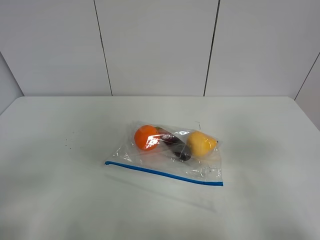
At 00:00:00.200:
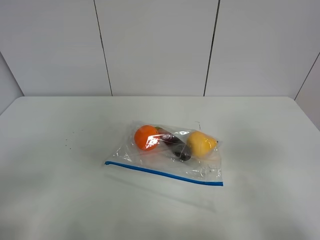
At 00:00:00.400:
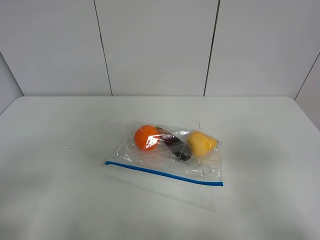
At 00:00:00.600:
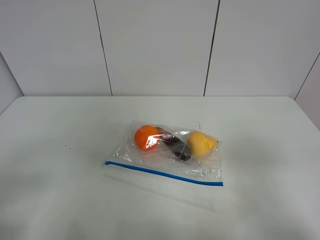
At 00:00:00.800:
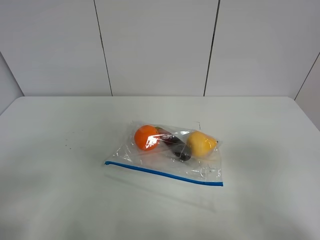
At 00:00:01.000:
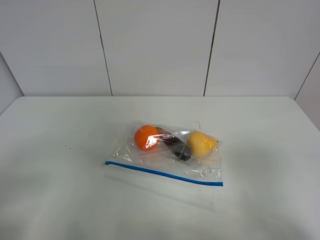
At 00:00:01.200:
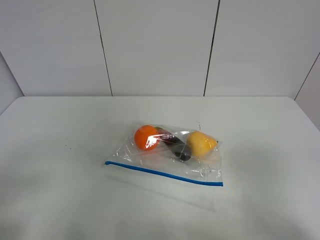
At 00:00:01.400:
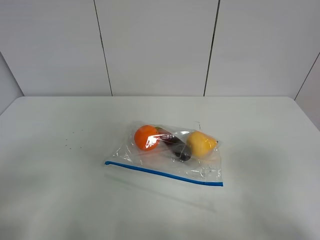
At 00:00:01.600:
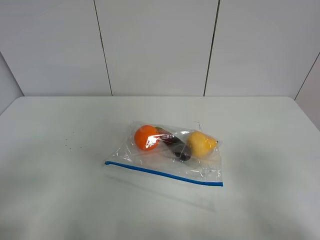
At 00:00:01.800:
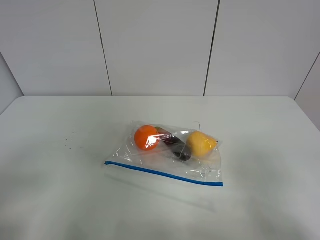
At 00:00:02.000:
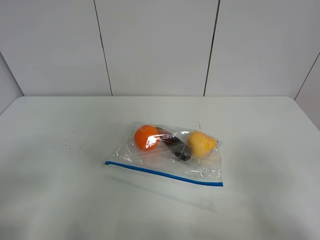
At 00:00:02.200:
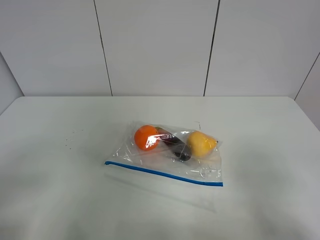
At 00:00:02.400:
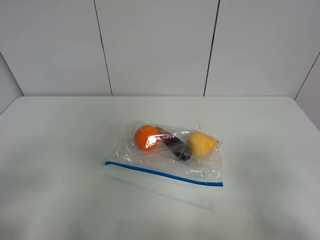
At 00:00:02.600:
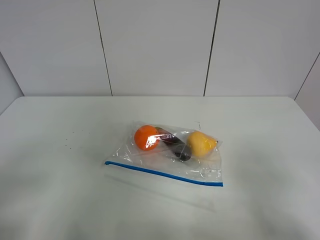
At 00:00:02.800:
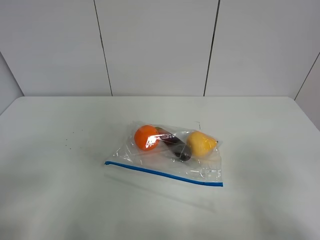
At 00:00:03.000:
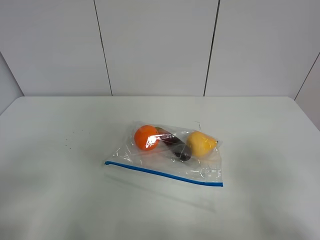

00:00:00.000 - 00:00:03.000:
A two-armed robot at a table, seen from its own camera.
00:00:01.600 - 00:00:03.000: Both grippers stay about where they are.

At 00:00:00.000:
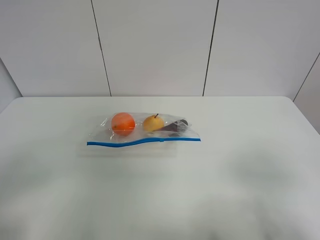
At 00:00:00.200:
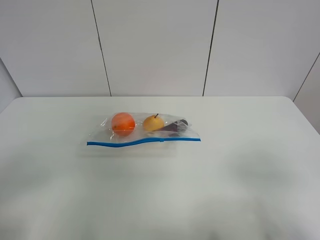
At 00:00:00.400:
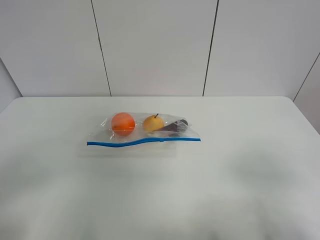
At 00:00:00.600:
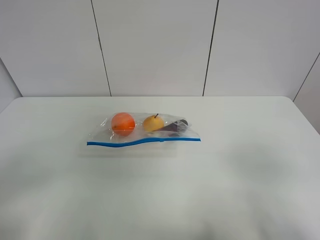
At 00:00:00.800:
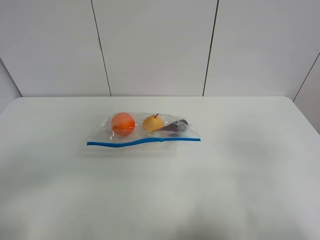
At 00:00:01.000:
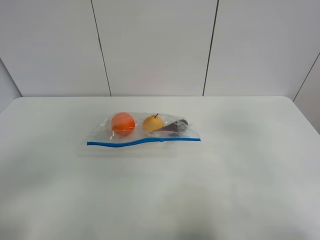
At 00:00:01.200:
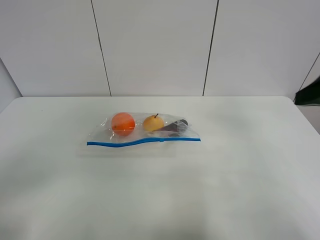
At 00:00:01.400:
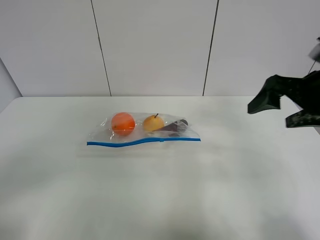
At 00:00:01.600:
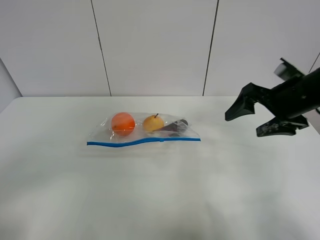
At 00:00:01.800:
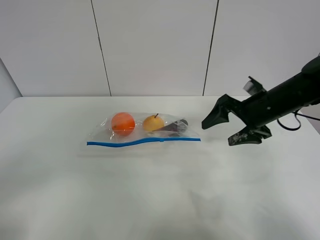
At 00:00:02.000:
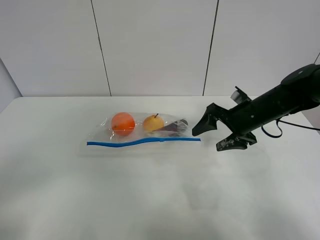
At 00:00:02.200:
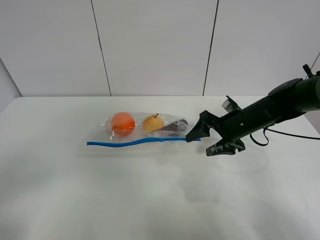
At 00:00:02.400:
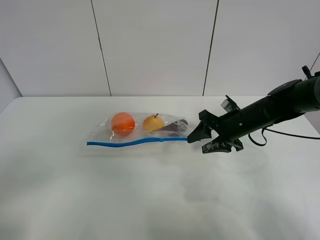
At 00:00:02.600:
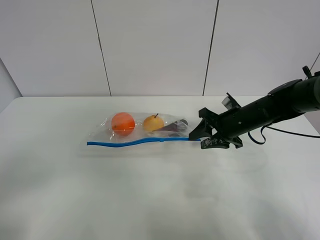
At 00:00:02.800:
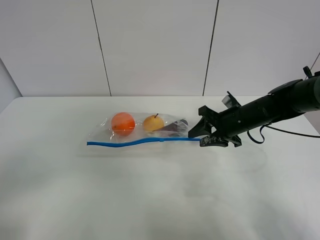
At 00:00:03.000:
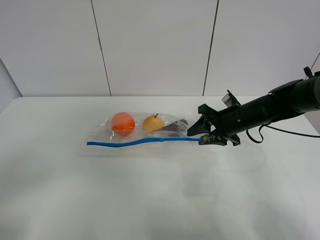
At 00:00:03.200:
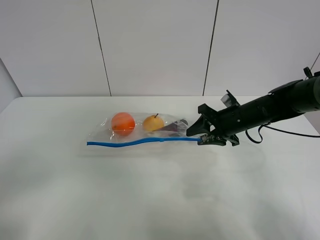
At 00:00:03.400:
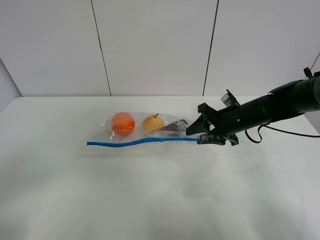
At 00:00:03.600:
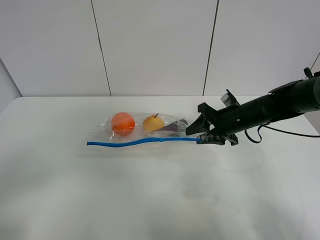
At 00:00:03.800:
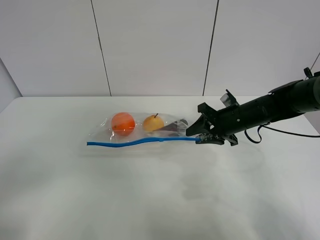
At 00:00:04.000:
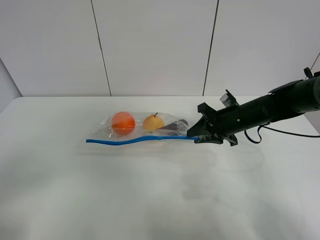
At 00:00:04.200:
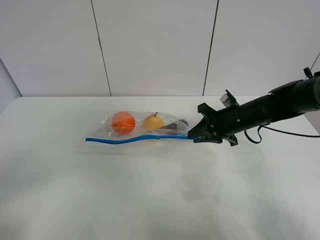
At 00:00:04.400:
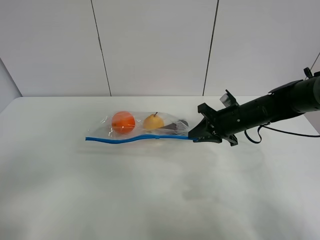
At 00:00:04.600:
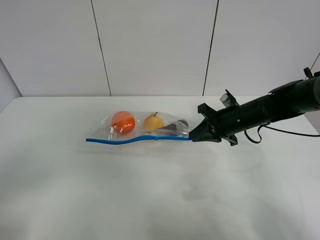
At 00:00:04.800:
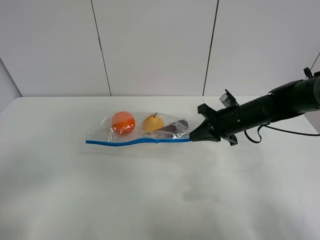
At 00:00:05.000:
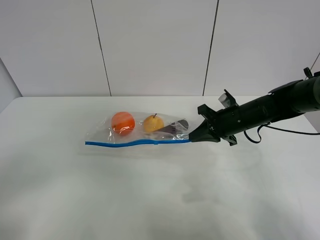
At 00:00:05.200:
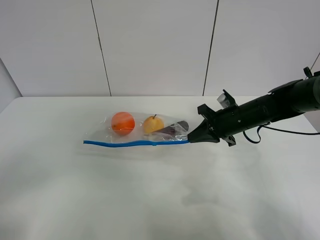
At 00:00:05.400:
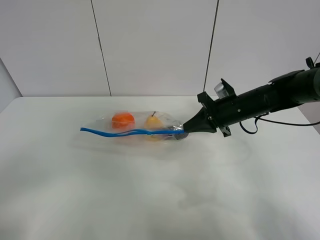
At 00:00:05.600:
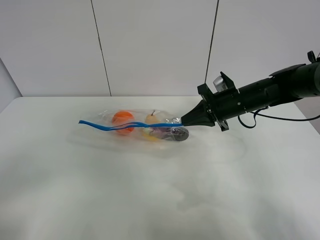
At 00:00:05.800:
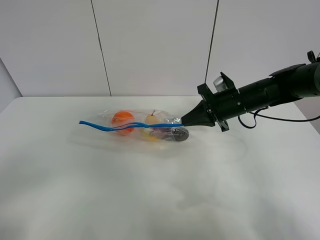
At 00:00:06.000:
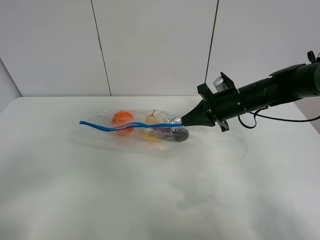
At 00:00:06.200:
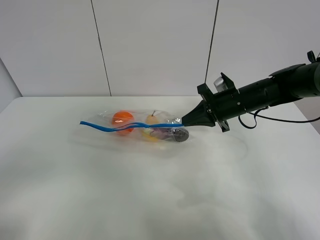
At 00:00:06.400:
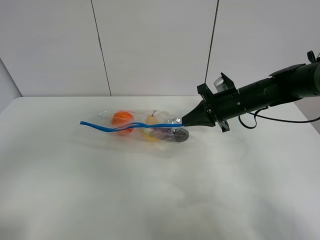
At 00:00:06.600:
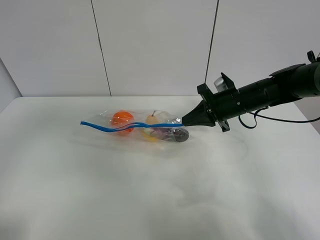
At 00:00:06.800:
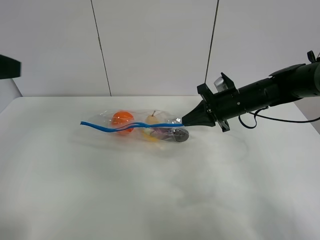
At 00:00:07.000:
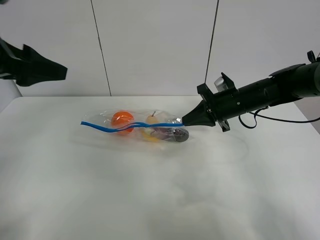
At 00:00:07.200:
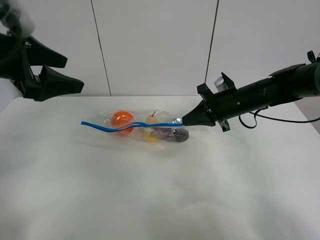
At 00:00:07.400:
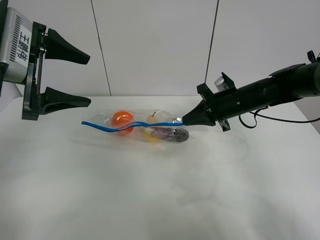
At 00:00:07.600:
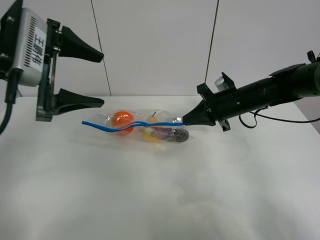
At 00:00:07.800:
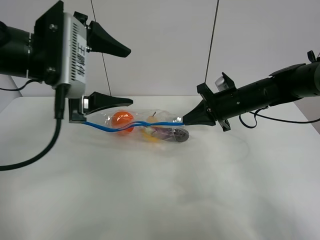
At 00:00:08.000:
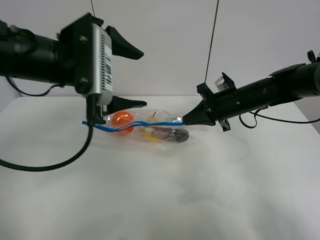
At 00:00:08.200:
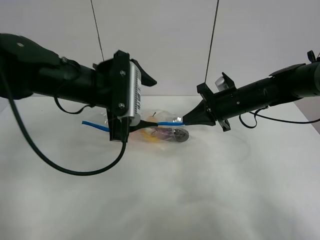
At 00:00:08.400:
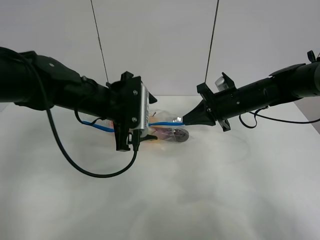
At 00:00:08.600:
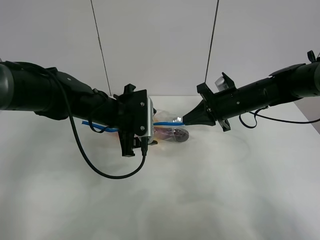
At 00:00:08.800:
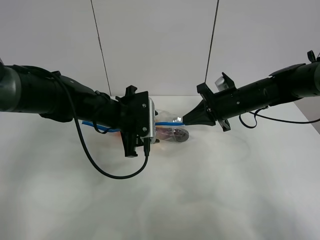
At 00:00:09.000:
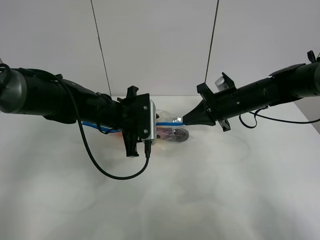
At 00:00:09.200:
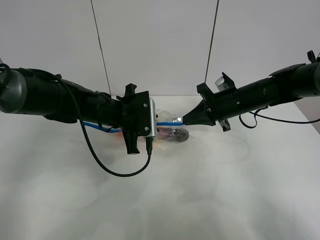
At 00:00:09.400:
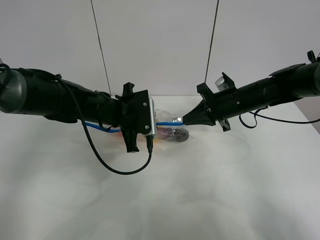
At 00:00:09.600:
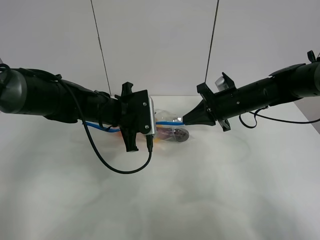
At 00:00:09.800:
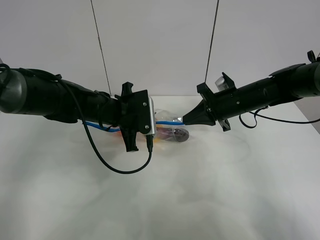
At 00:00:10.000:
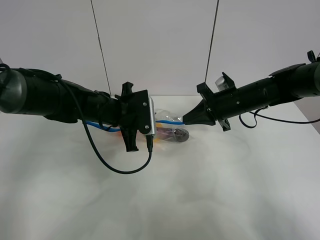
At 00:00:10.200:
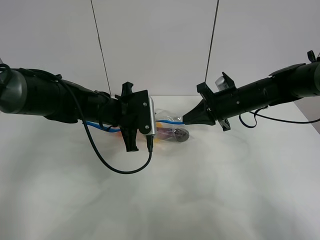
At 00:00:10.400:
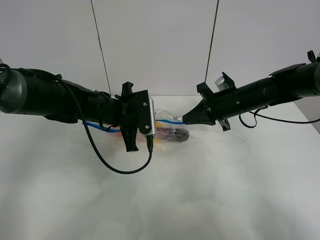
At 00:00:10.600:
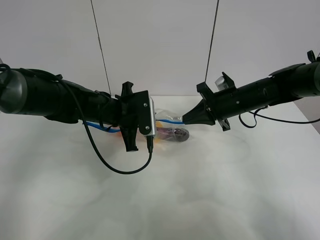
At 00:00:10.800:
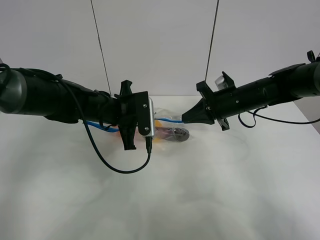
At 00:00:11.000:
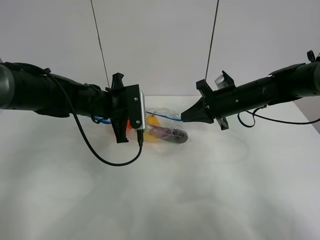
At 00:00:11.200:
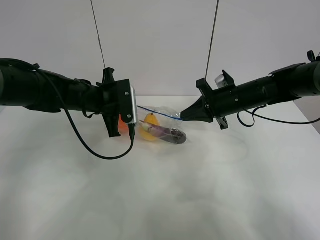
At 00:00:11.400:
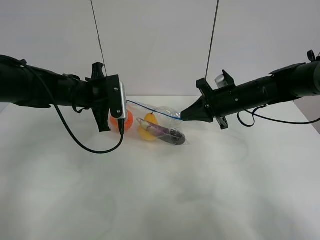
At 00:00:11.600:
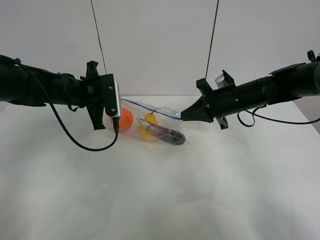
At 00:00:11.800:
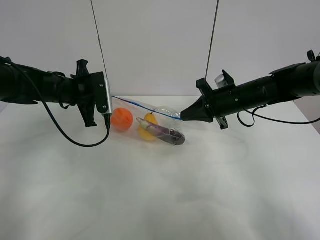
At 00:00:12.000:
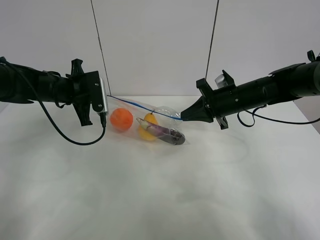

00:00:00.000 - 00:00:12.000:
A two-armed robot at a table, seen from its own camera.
Step, 00:00:00.000 - 00:00:04.600: Grasp the fruit bag with right gripper.
Step, 00:00:04.800 - 00:00:05.600: Lift the fruit bag with your right gripper.
00:00:00.000 - 00:00:01.600: The right gripper goes approximately 30 cm forward.
00:00:01.600 - 00:00:03.000: The right gripper is displaced downward, forward and to the left by some 15 cm, and closes its fingers.
00:00:03.000 - 00:00:04.400: Both grippers stay put.
00:00:04.400 - 00:00:06.000: There are only small adjustments of the grippers.
00:00:06.000 - 00:00:07.600: The left gripper shifts some 30 cm forward.
00:00:07.600 - 00:00:09.000: The left gripper shifts some 20 cm downward, to the right and forward, and closes up.
00:00:09.000 - 00:00:10.400: The left gripper closes up.
00:00:10.400 - 00:00:12.000: The left gripper moves to the left, some 10 cm.

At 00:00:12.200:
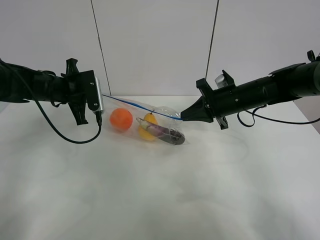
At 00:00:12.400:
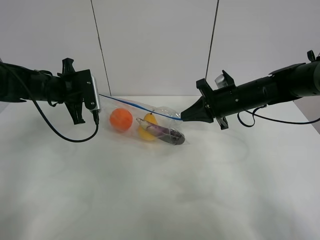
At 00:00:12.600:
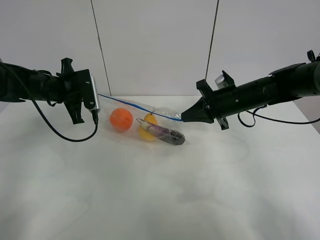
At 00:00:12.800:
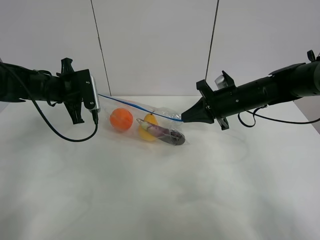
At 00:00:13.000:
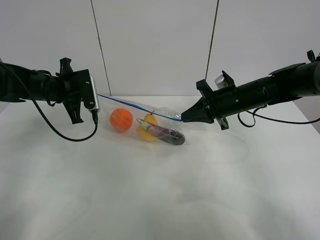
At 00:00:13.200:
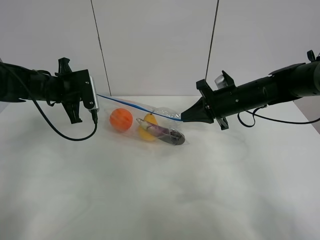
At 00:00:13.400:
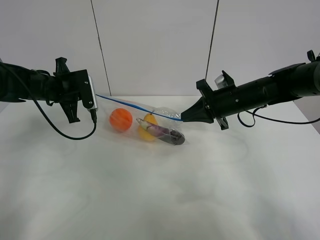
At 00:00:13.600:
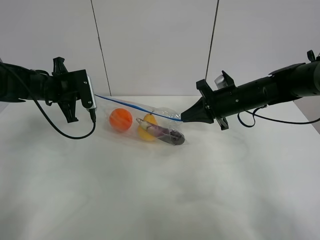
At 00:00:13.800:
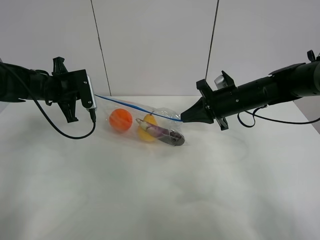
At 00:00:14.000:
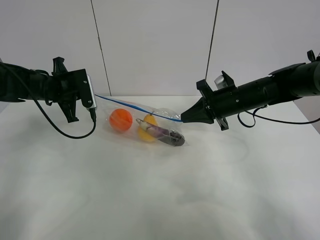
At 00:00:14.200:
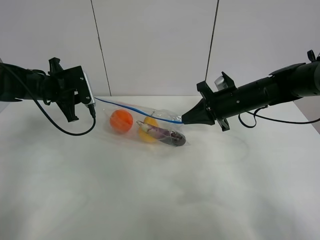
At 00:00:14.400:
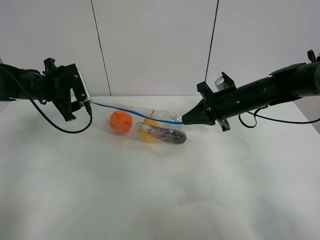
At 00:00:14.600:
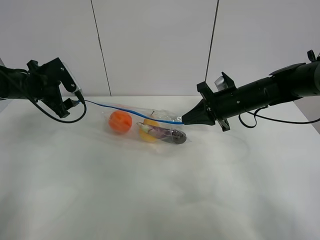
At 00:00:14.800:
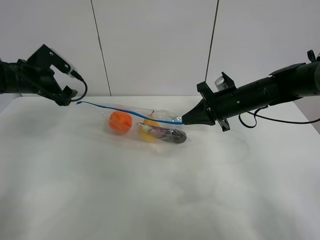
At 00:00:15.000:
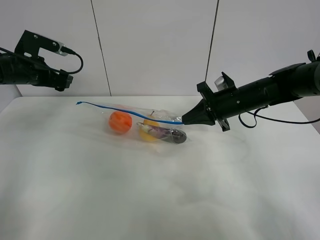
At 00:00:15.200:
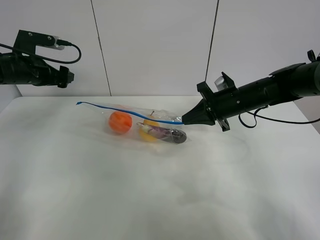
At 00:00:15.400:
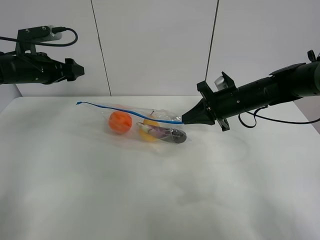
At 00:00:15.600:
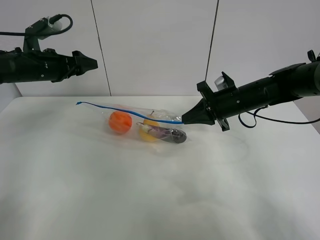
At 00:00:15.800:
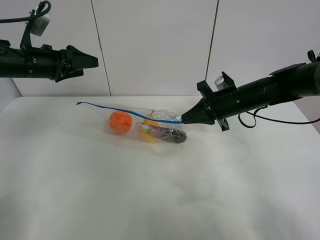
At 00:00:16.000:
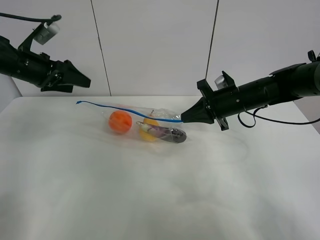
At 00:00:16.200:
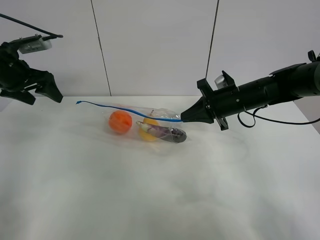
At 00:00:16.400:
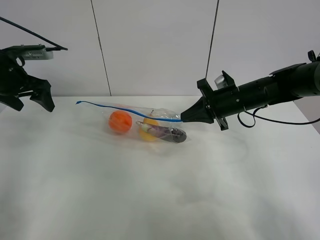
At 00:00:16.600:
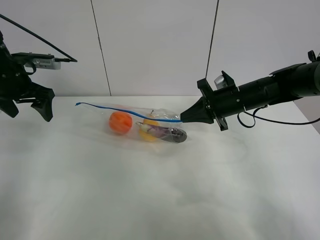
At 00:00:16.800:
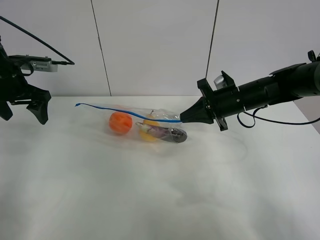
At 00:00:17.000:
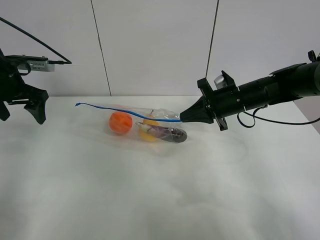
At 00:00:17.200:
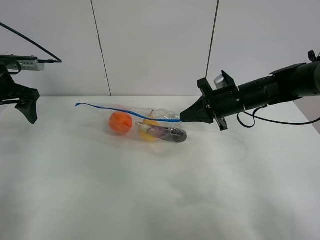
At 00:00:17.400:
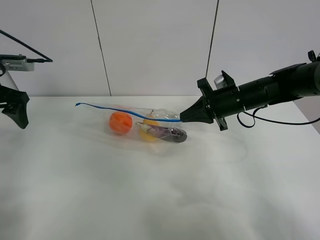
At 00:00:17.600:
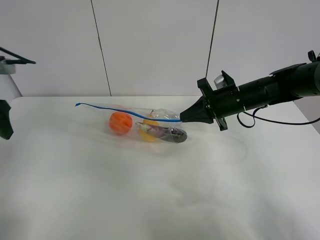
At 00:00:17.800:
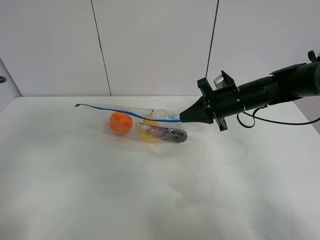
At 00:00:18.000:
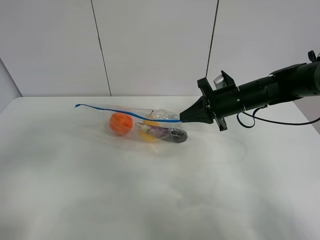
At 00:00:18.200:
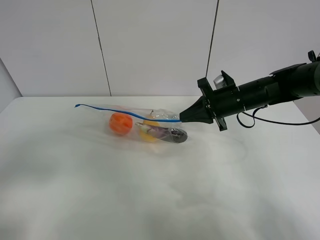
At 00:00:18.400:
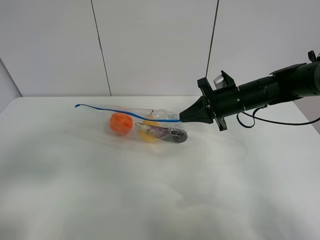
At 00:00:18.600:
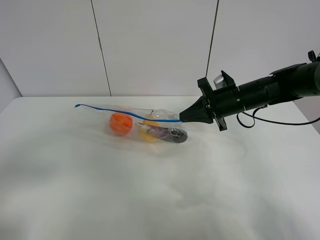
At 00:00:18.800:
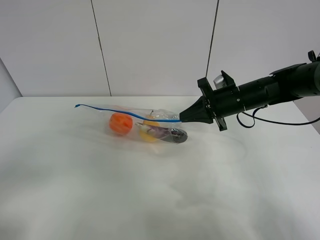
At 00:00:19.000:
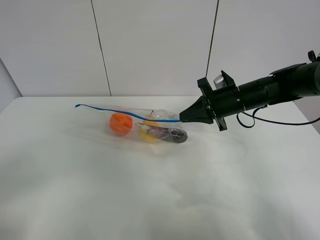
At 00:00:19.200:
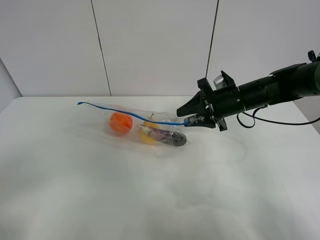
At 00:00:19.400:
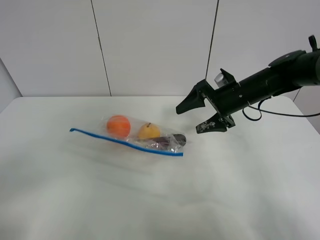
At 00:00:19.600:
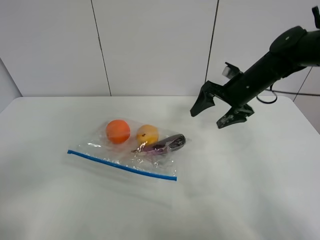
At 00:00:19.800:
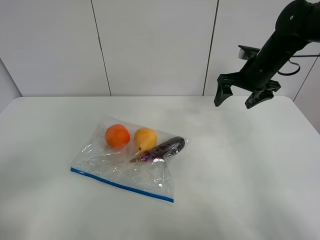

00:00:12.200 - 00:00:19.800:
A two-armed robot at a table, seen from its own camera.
Step, 00:00:12.200 - 00:00:14.800: Pull the fruit bag with left gripper.
00:00:12.200 - 00:00:13.800: The grippers stay close to where they were, moving slightly.
00:00:13.800 - 00:00:15.200: The left gripper heads to the left, covering approximately 5 cm, and opens its fingers.
00:00:15.200 - 00:00:16.800: The left gripper moves some 5 cm.
00:00:16.800 - 00:00:18.200: The left gripper heads backward, covering some 25 cm.
00:00:18.200 - 00:00:19.800: The left gripper travels backward by roughly 10 cm. Meanwhile the right gripper moves upward and to the right, roughly 10 cm, and opens up.
